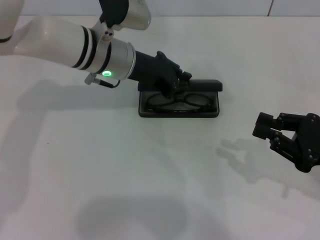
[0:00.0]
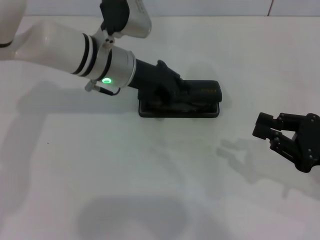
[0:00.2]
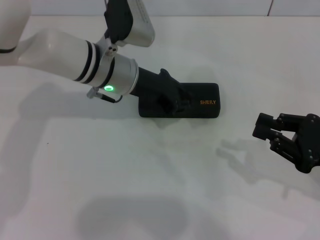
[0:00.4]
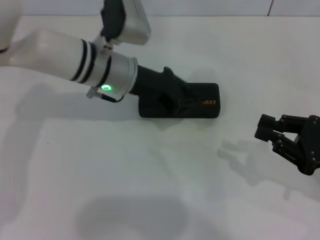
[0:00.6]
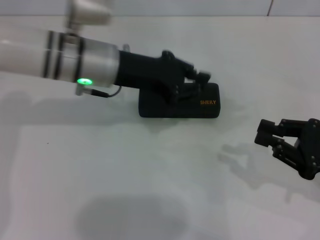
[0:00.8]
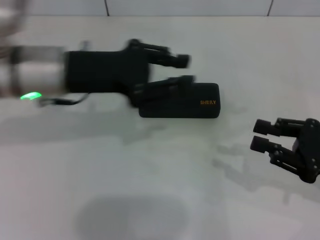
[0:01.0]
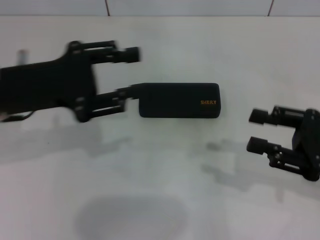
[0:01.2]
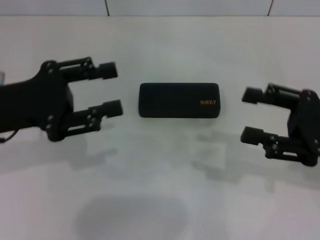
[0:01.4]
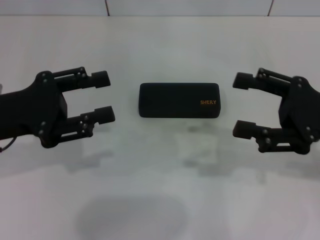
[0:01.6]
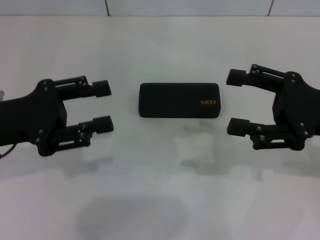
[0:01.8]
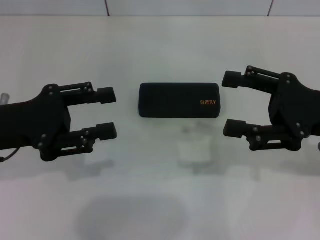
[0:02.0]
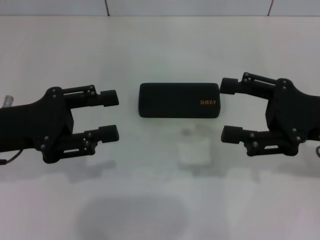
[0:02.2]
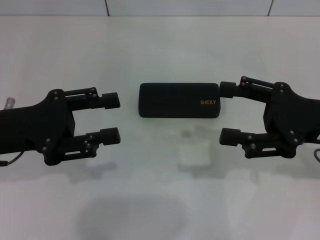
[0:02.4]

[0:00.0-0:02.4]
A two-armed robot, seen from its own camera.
0:00.0 to 0:01.2: The left gripper travels backward and to the left by some 20 cm, and opens its fingers.
0:01.2 to 0:02.4: The left gripper changes place by about 5 cm, while the right gripper ends up about 5 cm from where it was, and opens its fingers.

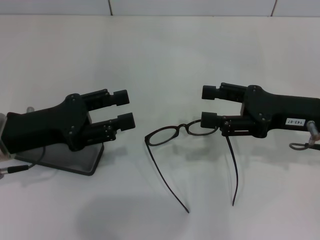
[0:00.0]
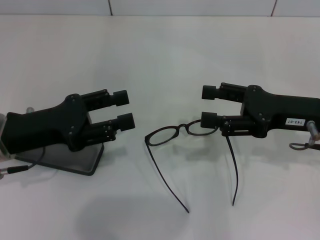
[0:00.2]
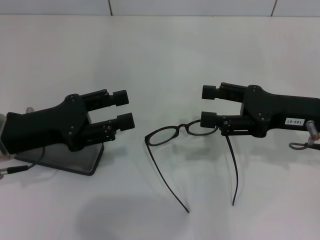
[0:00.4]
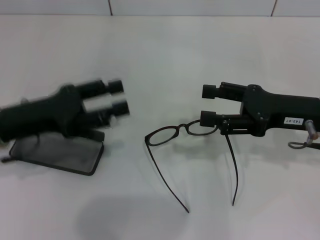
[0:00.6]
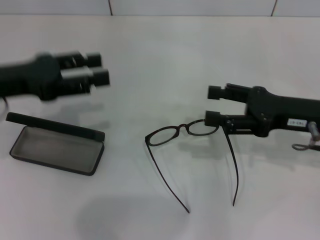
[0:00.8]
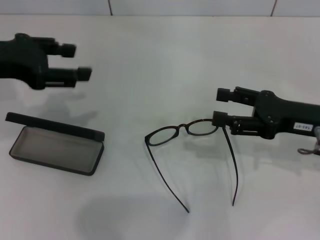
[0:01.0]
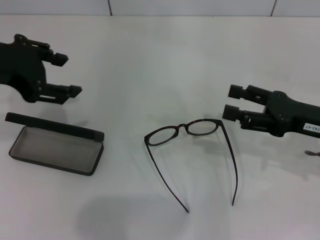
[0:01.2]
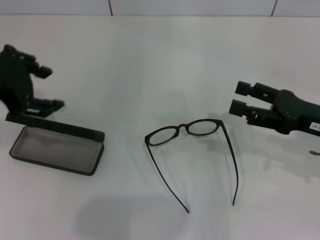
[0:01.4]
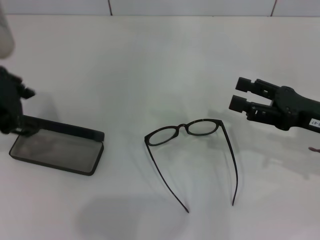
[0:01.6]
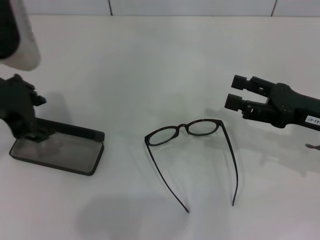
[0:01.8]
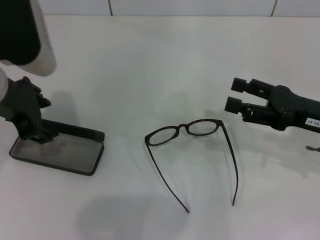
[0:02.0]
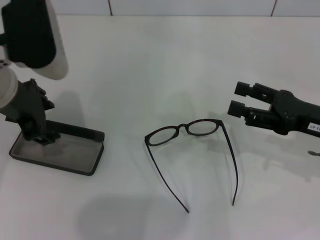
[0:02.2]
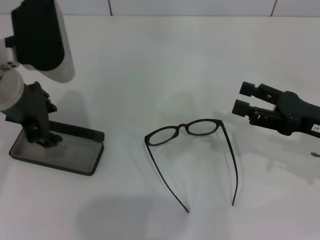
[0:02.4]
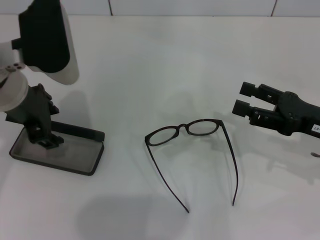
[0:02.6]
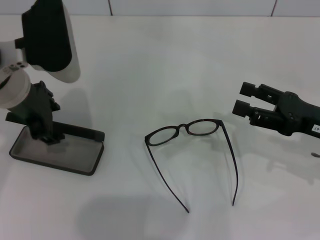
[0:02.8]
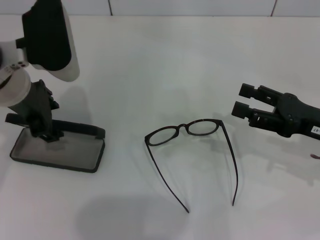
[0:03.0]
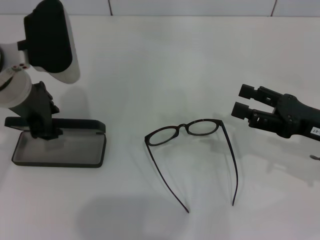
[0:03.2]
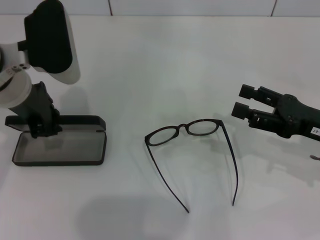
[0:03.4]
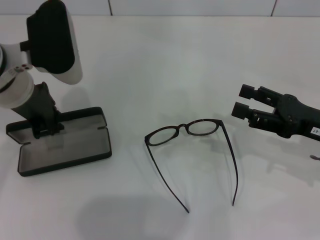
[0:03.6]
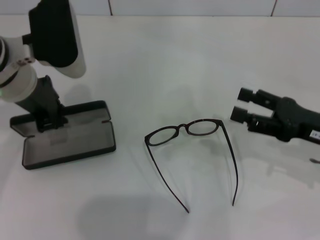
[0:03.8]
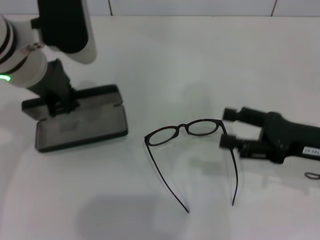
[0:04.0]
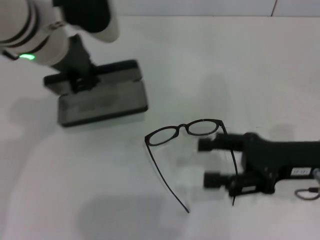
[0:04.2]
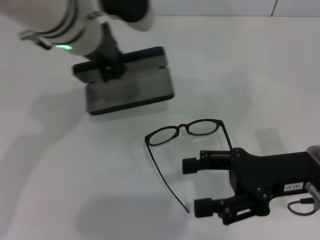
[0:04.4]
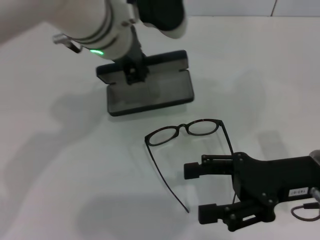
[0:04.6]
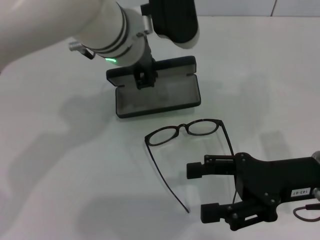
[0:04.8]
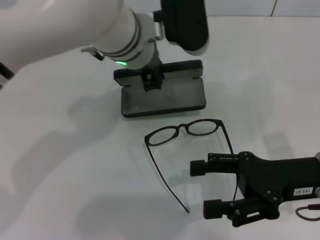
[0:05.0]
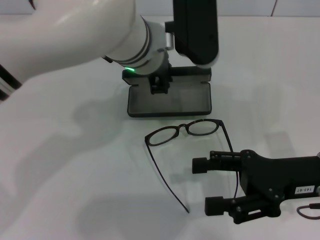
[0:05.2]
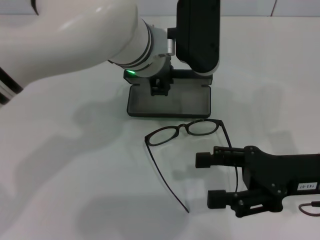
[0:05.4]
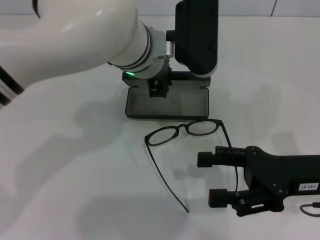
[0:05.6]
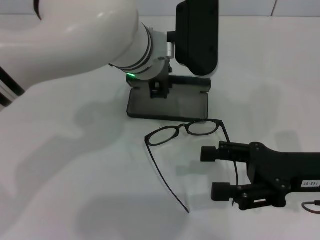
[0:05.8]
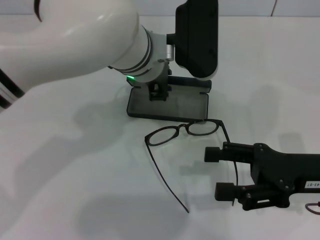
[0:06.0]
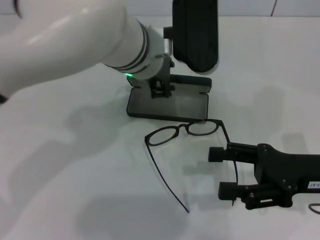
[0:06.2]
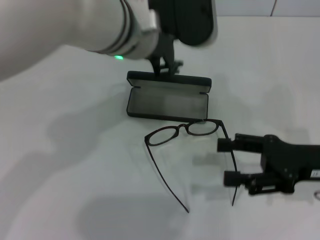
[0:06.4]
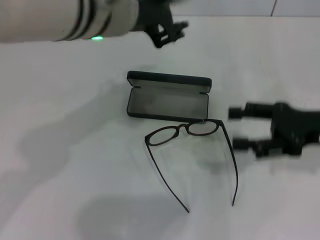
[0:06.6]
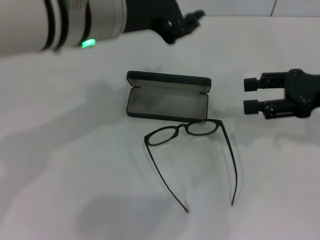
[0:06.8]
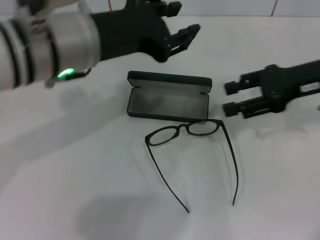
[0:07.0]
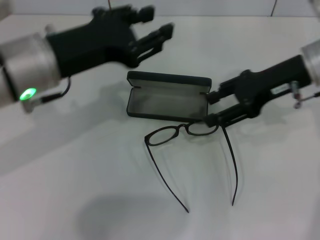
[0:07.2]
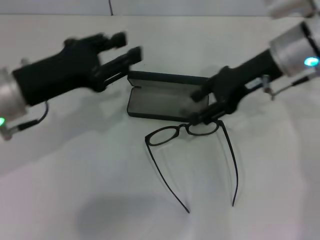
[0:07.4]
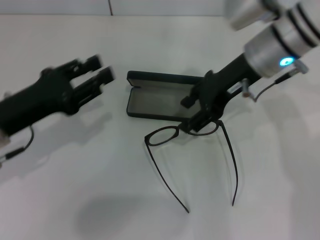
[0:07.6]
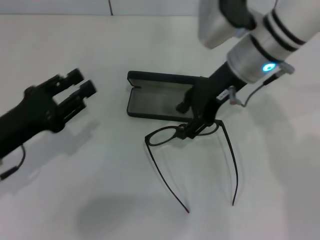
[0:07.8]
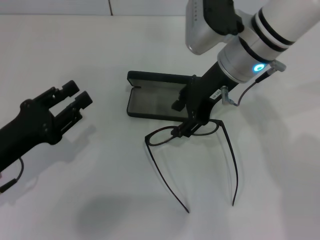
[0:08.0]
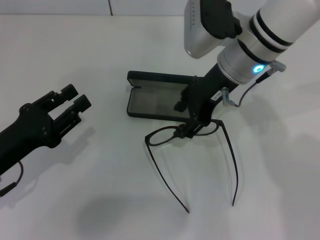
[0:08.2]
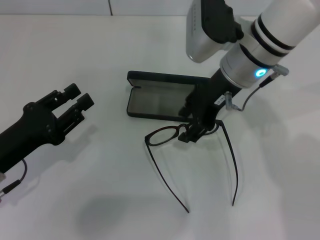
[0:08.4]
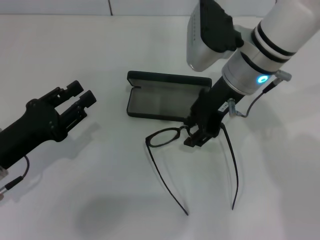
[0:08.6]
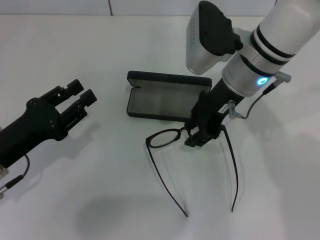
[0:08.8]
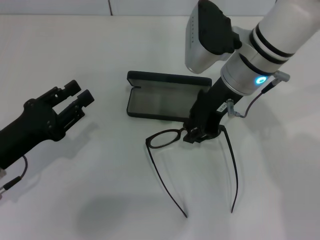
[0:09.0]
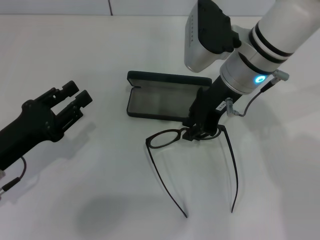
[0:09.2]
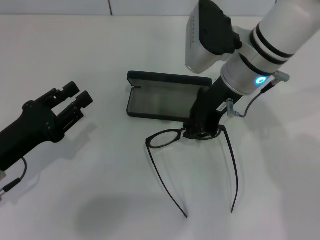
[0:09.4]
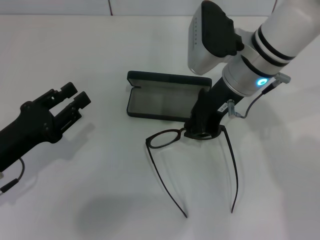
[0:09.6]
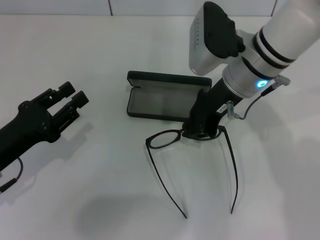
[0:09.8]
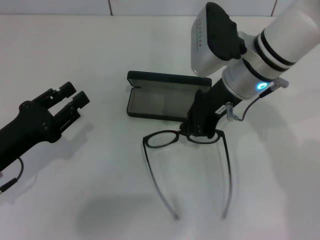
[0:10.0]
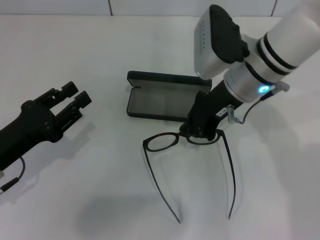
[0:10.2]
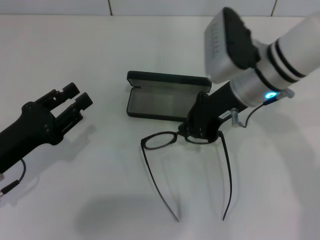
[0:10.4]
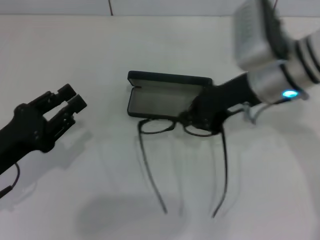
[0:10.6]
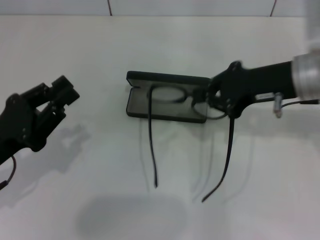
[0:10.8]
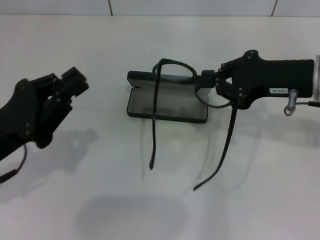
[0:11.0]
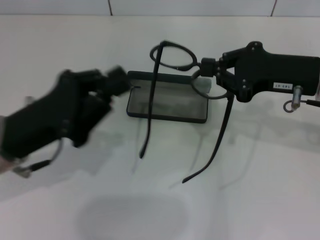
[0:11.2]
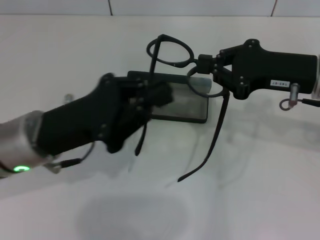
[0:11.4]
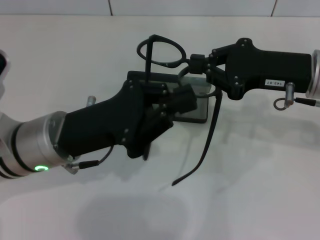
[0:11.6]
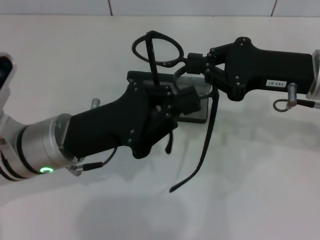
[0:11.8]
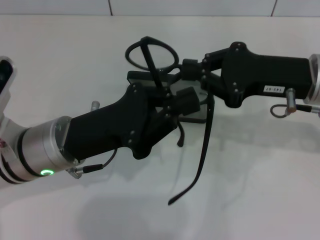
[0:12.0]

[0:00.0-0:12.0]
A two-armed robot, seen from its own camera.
Step, 0:00.0 to 0:03.4: Grab the glasses case with your left hand.
Step, 0:03.6 to 0:06.0: Place the glasses case in the center of the table with your left hand.
Step, 0:06.2 to 0:10.2: Grab the eyeglass frame with your right hand.
0:00.0 to 0:01.6: The left gripper moves upward, some 15 cm.
0:01.6 to 0:03.0: The left gripper heads downward, covering approximately 5 cm.
0:03.0 to 0:04.4: The left gripper heads to the right, covering approximately 10 cm, and closes; the right gripper goes approximately 5 cm to the left.
0:04.4 to 0:06.0: The left gripper heads to the right, covering roughly 5 cm.
0:06.0 to 0:07.6: The right gripper moves forward, to the left and upward, roughly 20 cm; the left gripper shifts some 25 cm to the left and backward, and opens up.
0:07.6 to 0:09.0: The left gripper travels downward by about 5 cm.
0:09.0 to 0:10.4: The right gripper closes up.
0:10.4 to 0:12.0: Both grippers travel together to the right, roughly 10 cm. The left gripper closes its fingers.

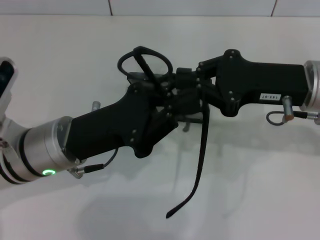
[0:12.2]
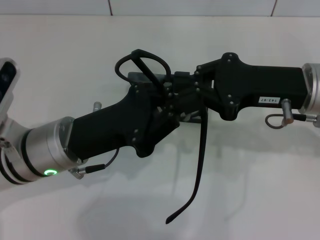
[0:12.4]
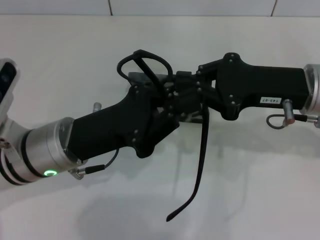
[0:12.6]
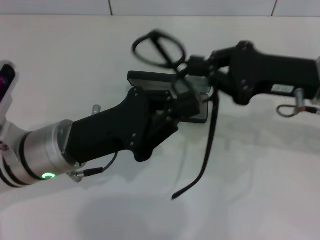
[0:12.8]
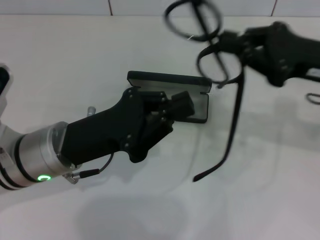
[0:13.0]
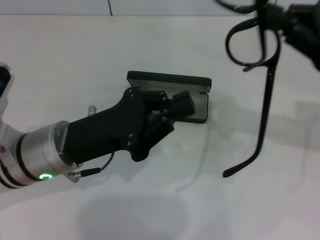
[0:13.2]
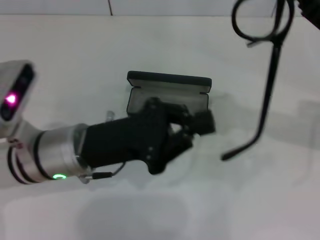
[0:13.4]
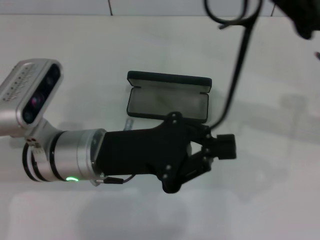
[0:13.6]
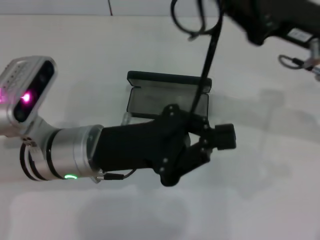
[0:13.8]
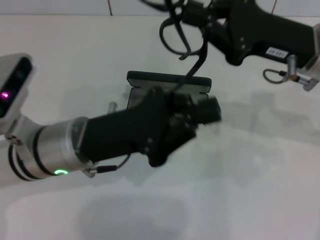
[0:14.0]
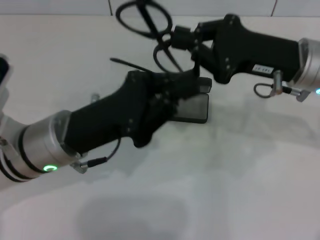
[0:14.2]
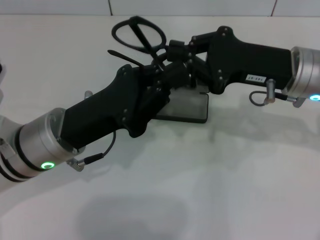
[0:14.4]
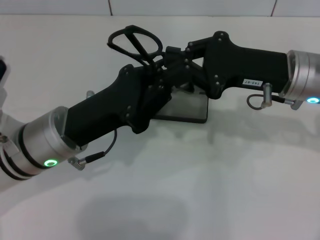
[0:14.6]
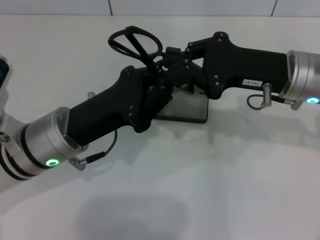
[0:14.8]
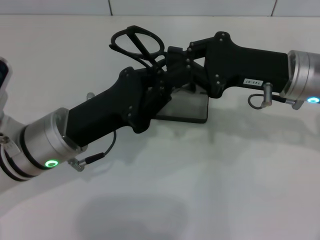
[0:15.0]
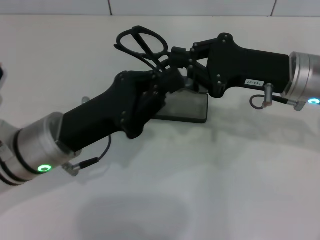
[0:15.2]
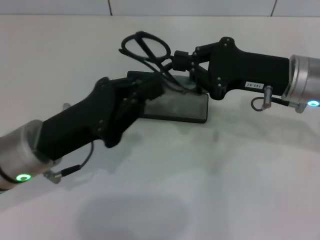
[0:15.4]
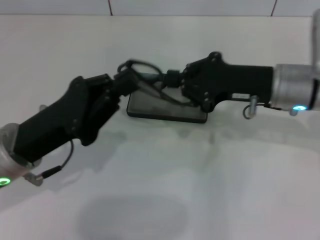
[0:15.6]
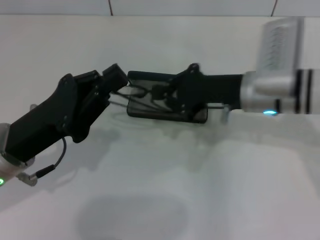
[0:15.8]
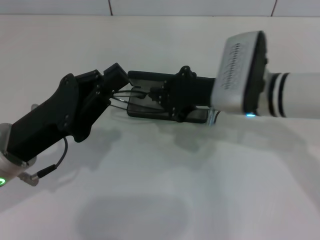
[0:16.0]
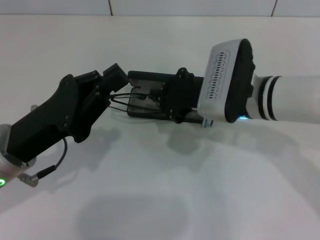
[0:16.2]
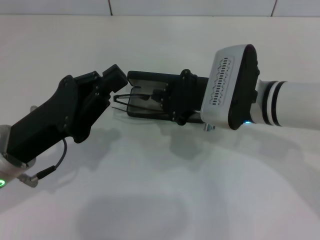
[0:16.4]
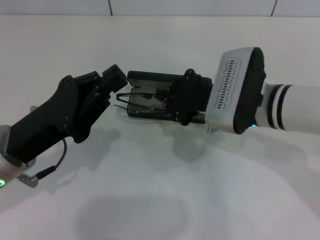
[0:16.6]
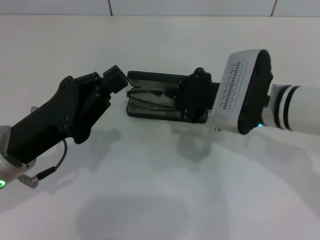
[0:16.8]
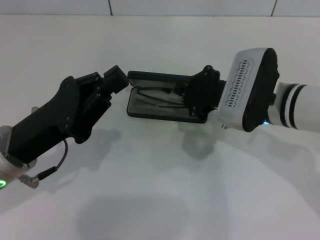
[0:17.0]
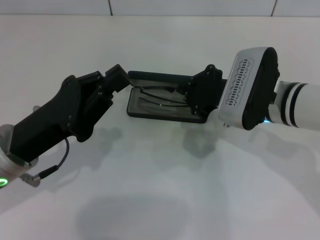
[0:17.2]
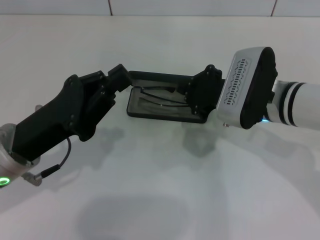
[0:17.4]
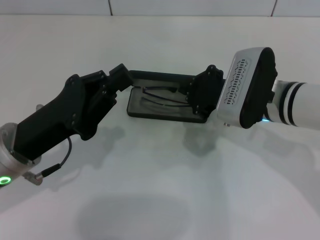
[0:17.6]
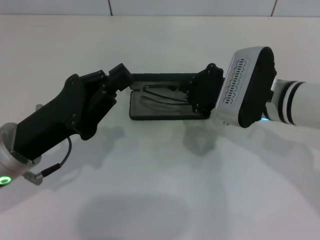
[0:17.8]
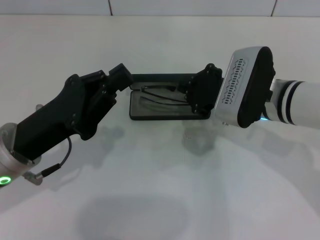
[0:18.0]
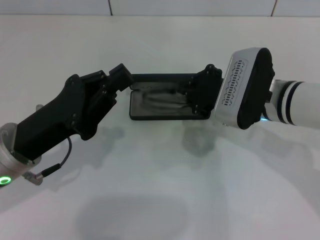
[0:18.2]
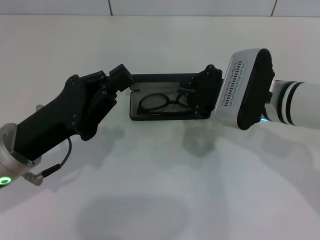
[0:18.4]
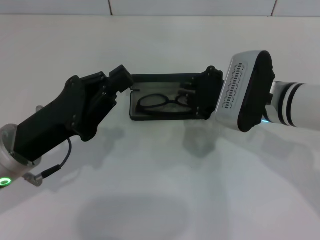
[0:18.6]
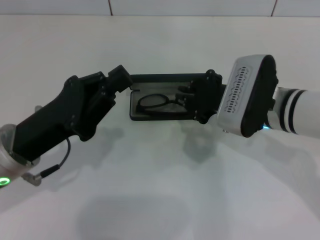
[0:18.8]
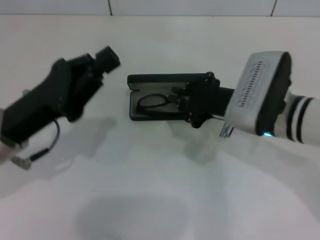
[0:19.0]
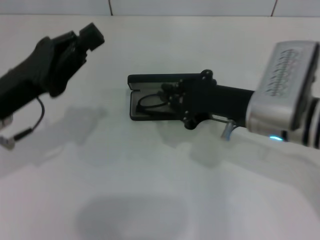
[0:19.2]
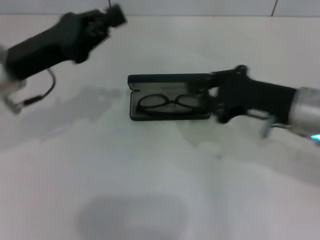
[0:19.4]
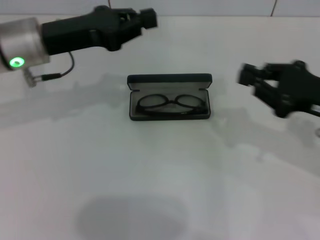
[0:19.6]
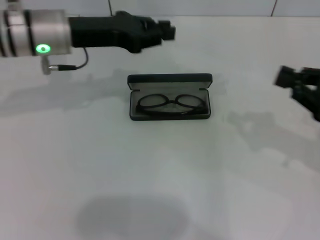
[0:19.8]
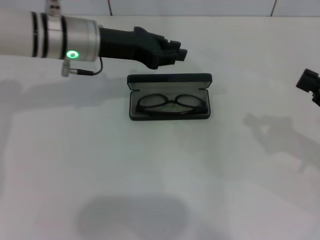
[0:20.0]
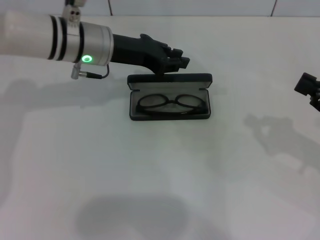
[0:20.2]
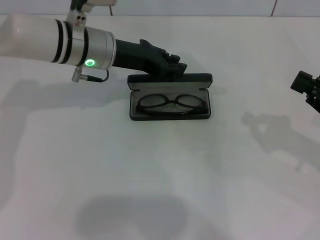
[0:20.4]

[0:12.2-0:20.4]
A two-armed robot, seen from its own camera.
Step, 0:12.2 to 0:15.2: Fold the frame with your left hand.
Step, 0:15.4 to 0:18.6: Put the glasses into the case with your right hand.
0:12.2 to 0:13.8: The right gripper reaches approximately 5 cm to the right, then returns.
0:13.8 to 0:15.4: The right gripper moves some 5 cm. Meanwhile the left gripper heads to the left, covering roughly 5 cm.
0:15.4 to 0:17.2: The right gripper moves to the left, roughly 5 cm.
0:17.2 to 0:18.8: Neither gripper changes place.
0:18.8 to 0:20.4: The right gripper is displaced to the right by roughly 20 cm; the left gripper goes roughly 20 cm forward and to the right, and opens.
